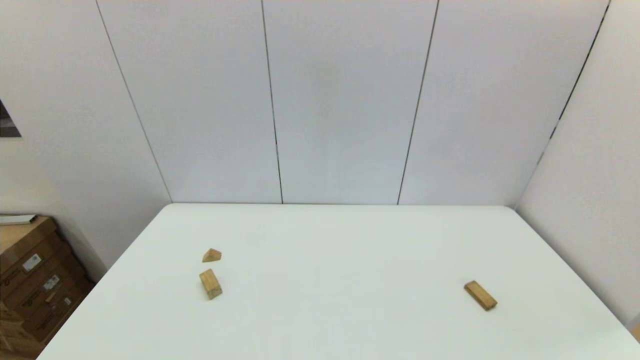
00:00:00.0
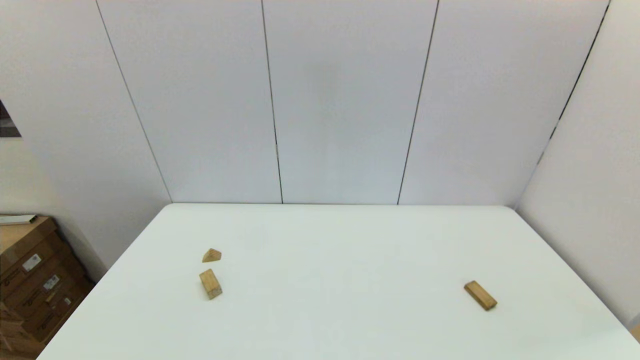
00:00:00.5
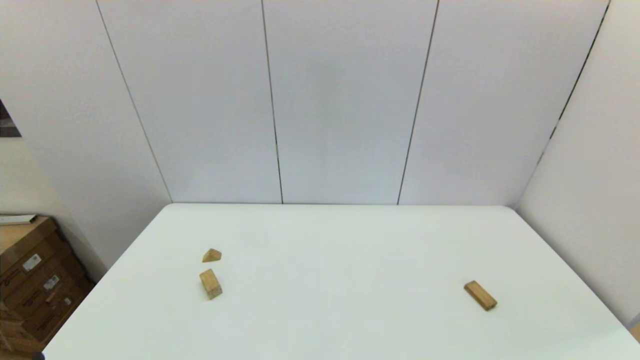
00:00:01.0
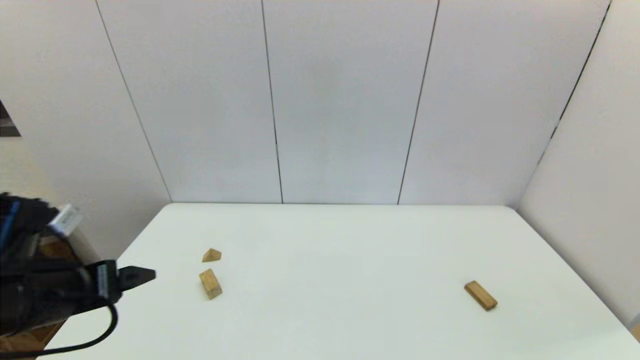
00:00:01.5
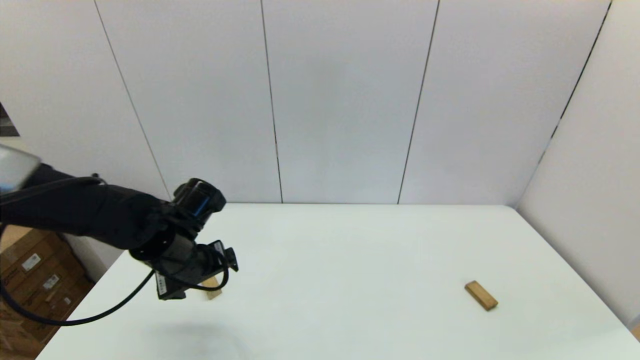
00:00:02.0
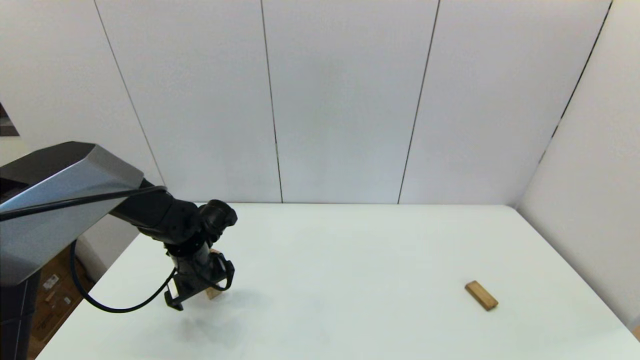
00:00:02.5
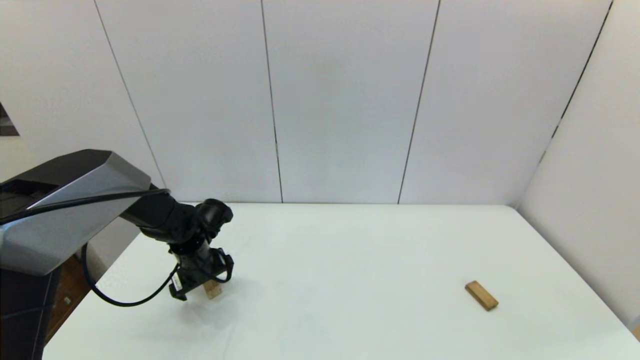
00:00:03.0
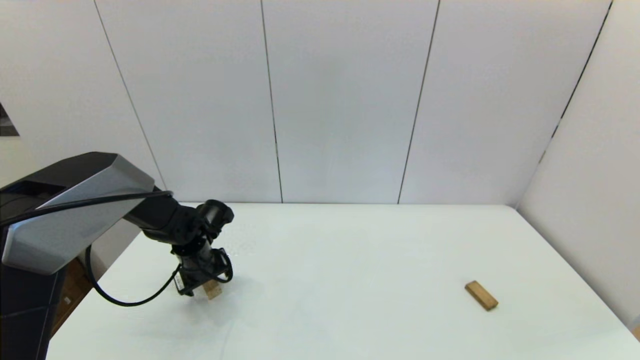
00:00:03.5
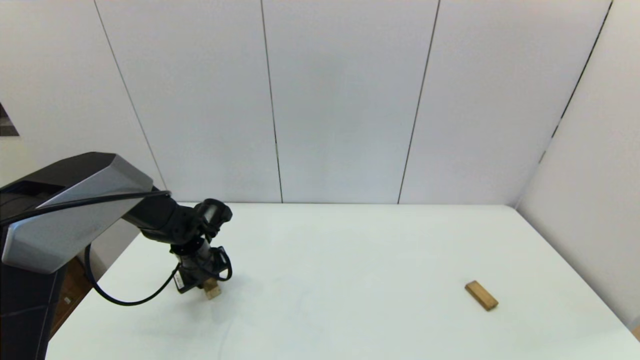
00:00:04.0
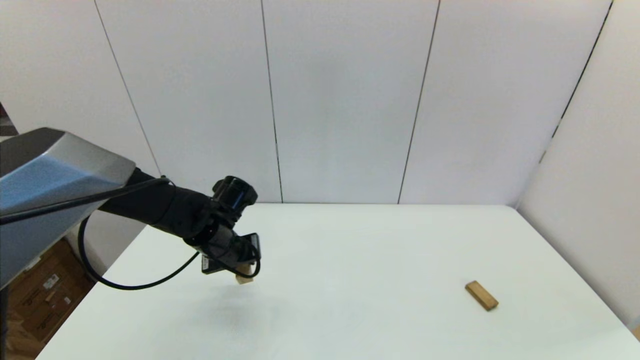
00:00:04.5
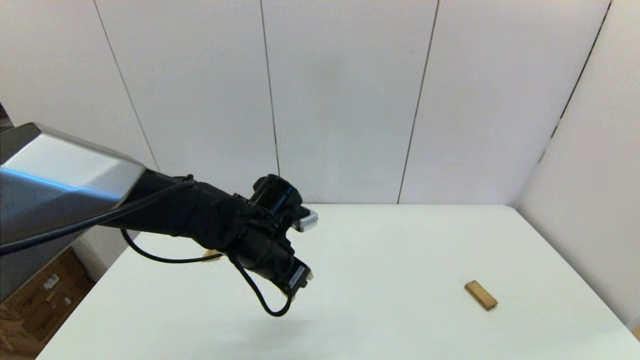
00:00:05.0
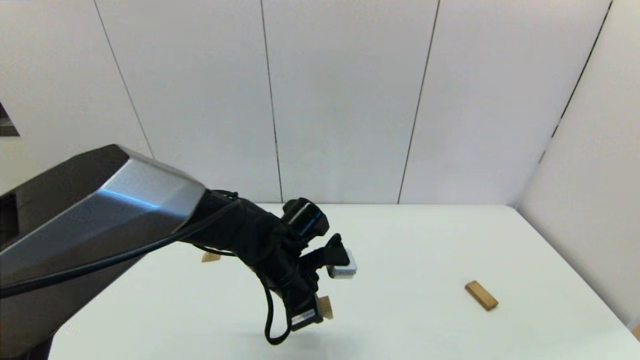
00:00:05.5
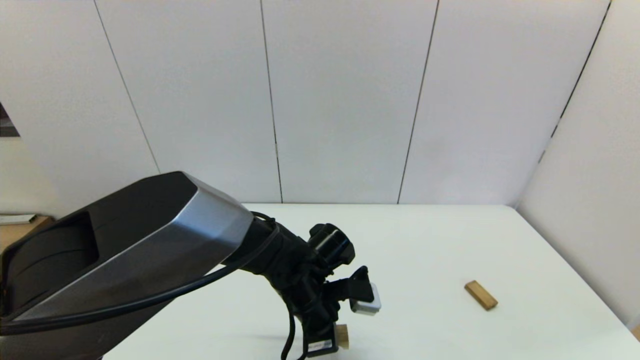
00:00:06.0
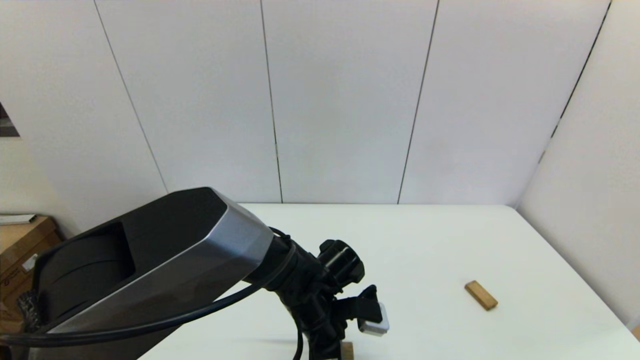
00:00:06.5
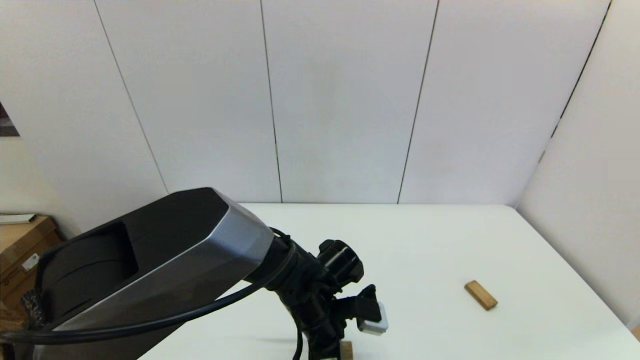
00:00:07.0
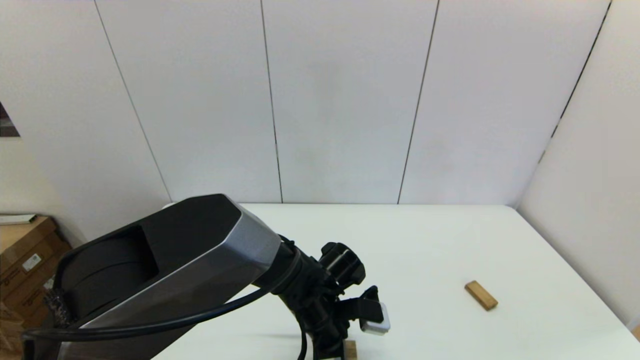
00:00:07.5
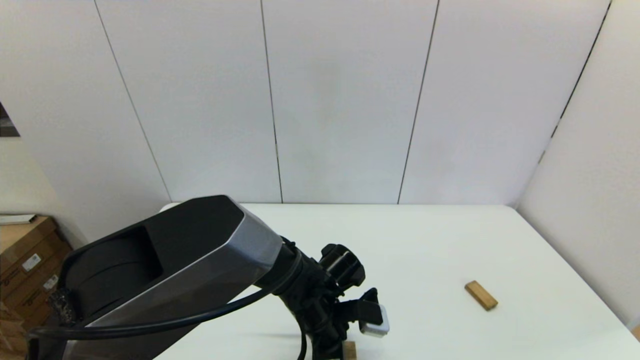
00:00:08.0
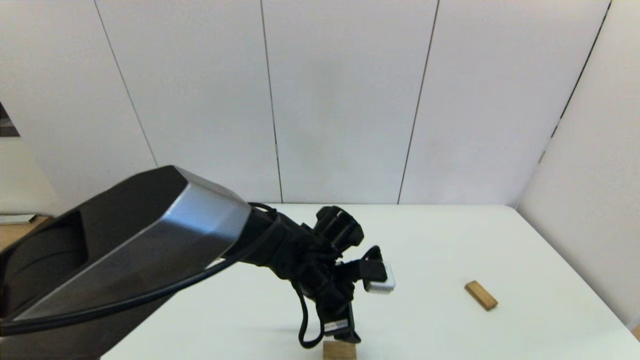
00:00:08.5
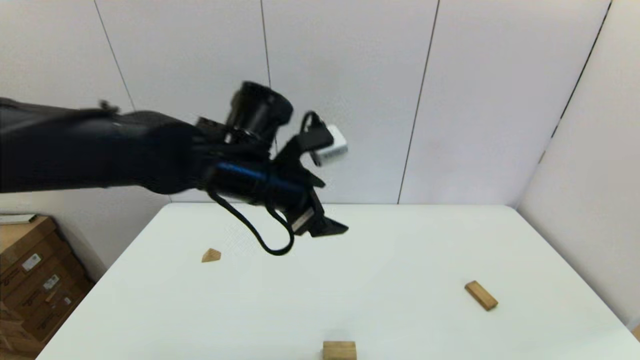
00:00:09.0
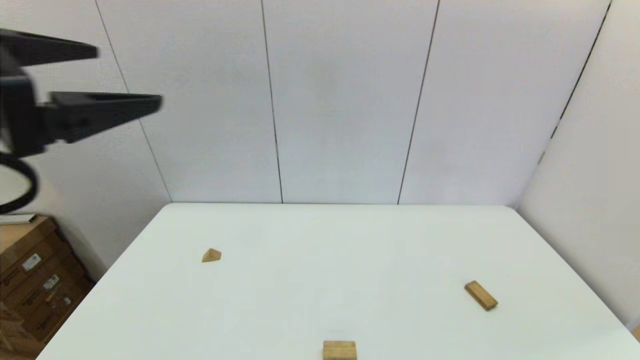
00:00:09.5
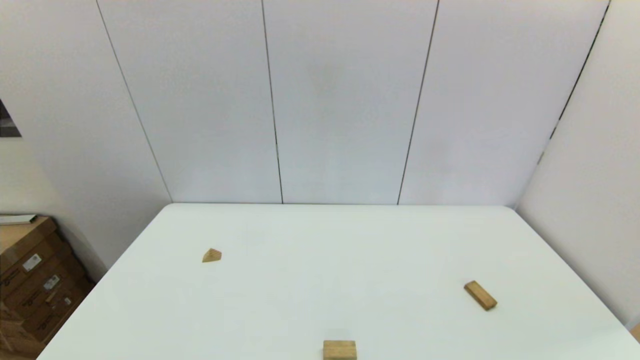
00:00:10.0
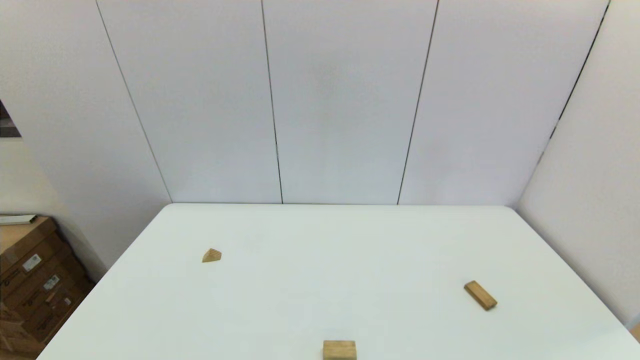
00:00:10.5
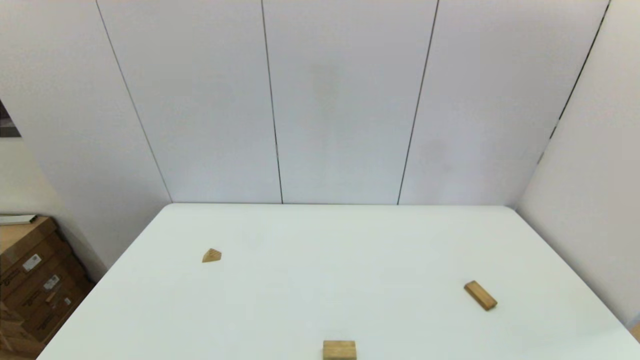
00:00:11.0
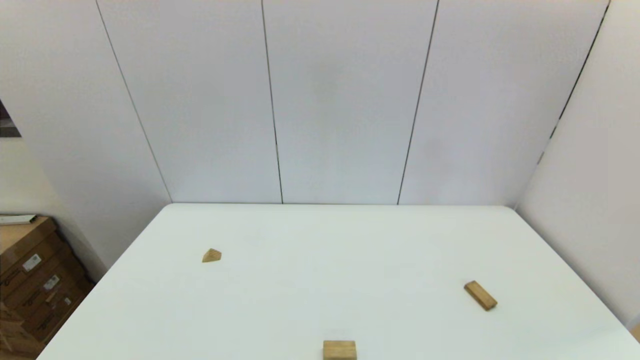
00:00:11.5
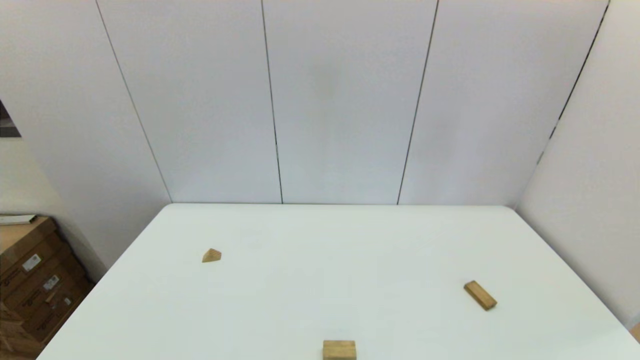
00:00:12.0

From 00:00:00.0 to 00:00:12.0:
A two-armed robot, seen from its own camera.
Task of the whole recording: place the arched building blocks in the center of the table, set up the rectangular building blocks, and then set up the triangular building blocks.
Step, from 00:00:01.0 to 00:00:03.5: Grasp the arch-shaped block with the left gripper.
Step, from 00:00:04.5 to 00:00:07.5: Place the arch-shaped block in the center of view with the left gripper.
From 00:00:00.0 to 00:00:02.0: The left gripper travels forward by roughly 30 cm.
From 00:00:02.0 to 00:00:04.0: The left gripper goes approximately 15 cm downward and forward, and closes.
From 00:00:04.0 to 00:00:06.0: The left gripper heads to the right and backward, covering approximately 25 cm.
From 00:00:06.0 to 00:00:08.0: The grippers stay close to where they were, moving slightly.
From 00:00:08.0 to 00:00:10.0: The left gripper is displaced to the left, backward and upward by some 50 cm, and opens up.

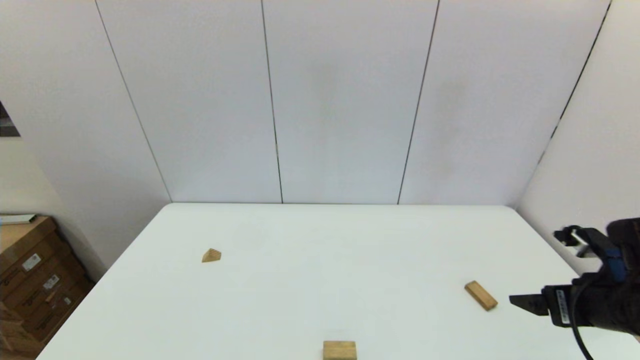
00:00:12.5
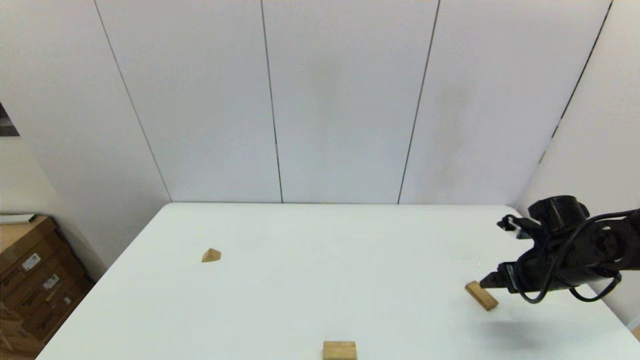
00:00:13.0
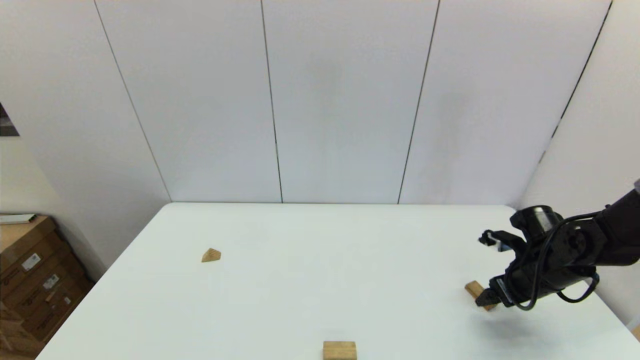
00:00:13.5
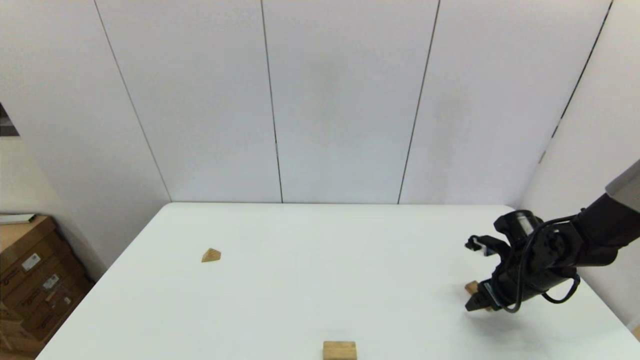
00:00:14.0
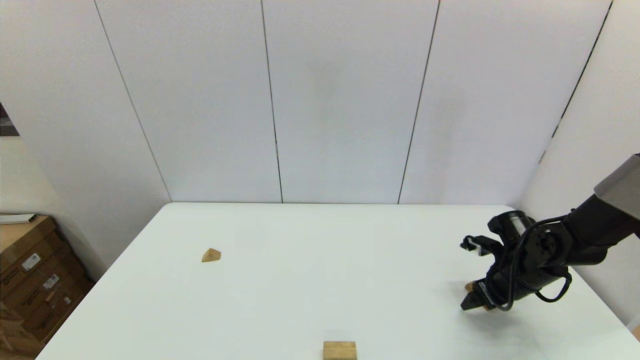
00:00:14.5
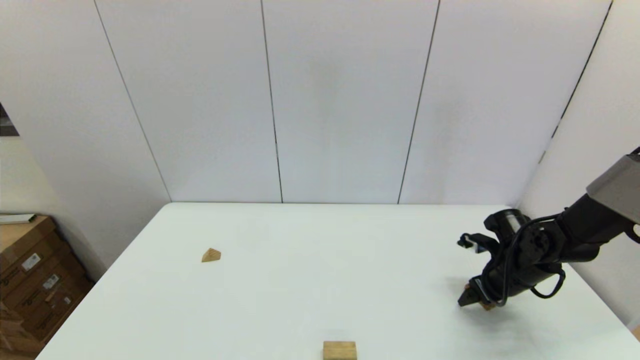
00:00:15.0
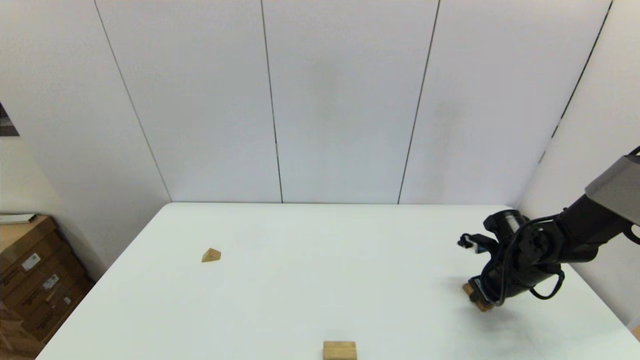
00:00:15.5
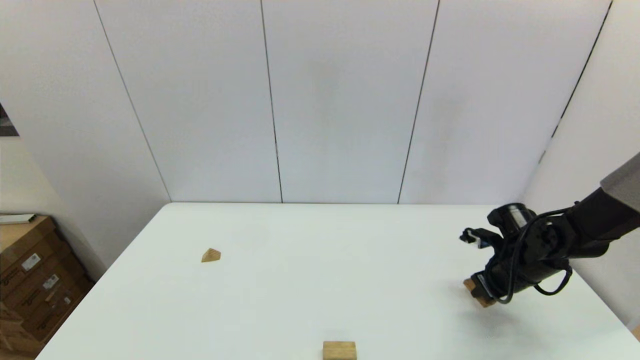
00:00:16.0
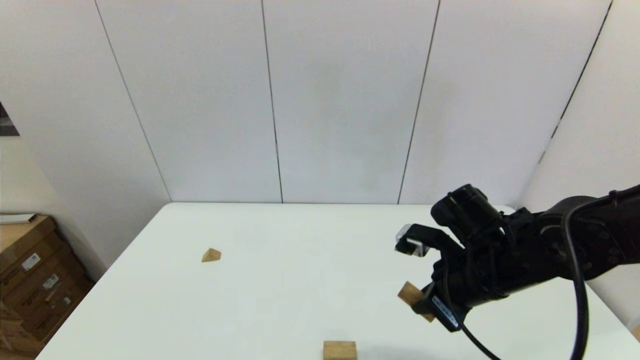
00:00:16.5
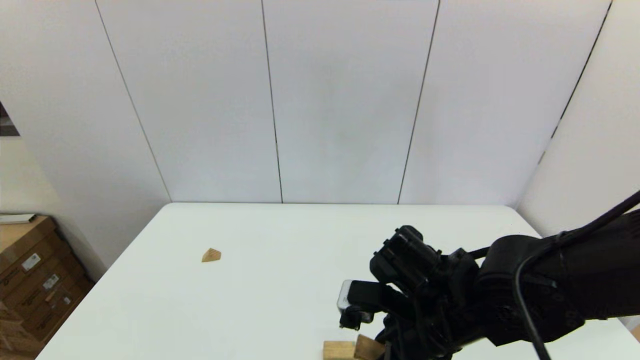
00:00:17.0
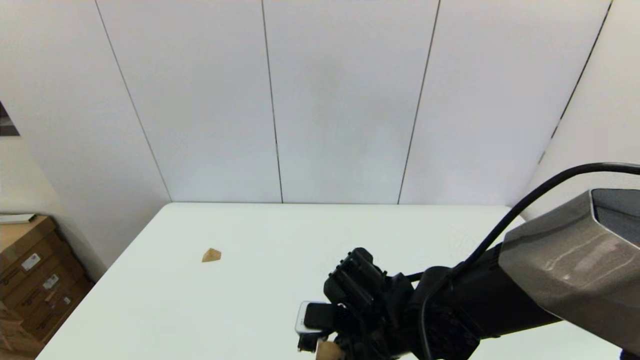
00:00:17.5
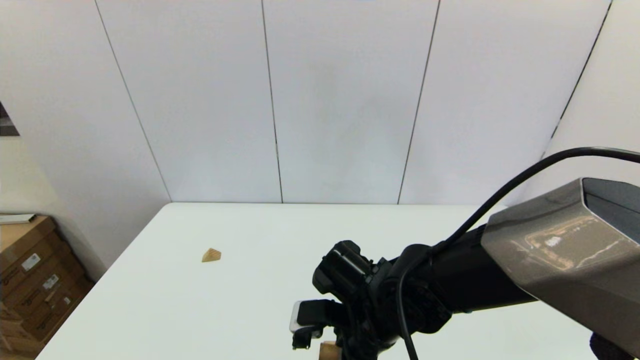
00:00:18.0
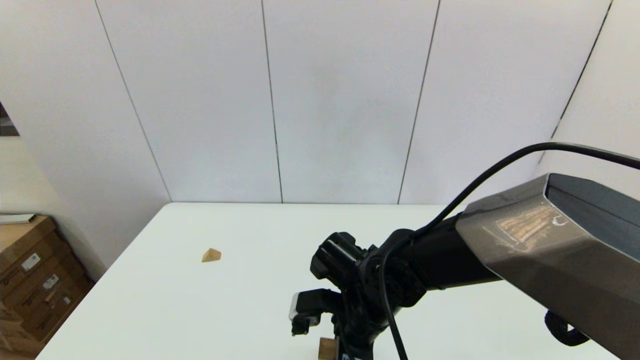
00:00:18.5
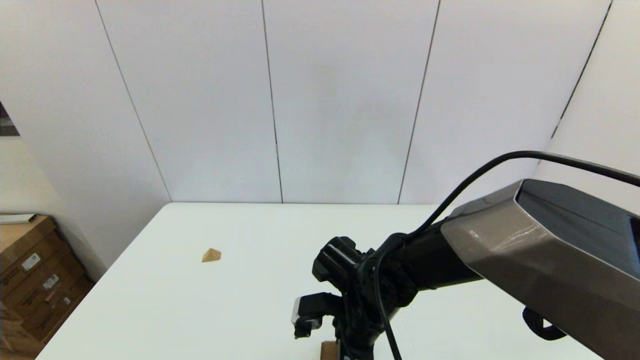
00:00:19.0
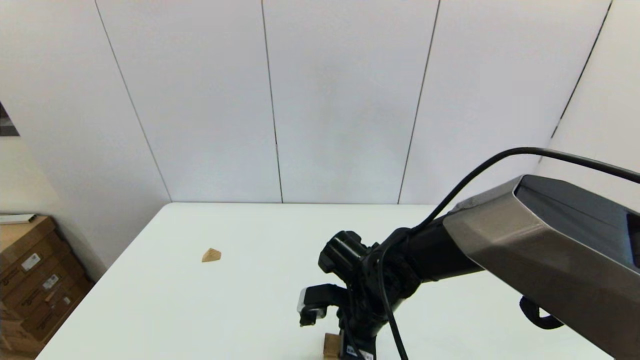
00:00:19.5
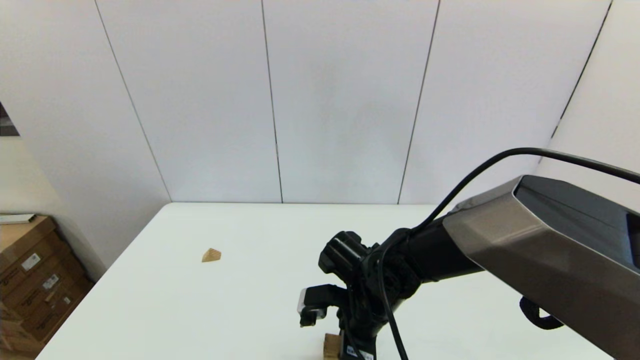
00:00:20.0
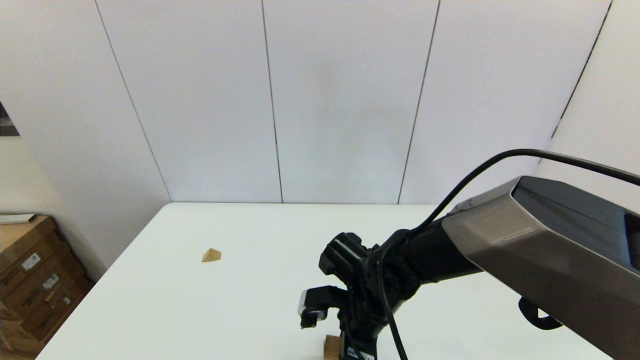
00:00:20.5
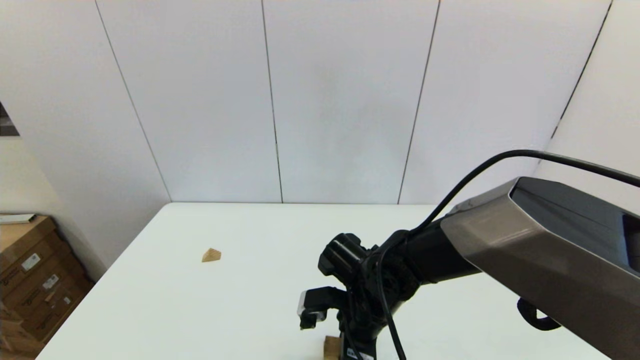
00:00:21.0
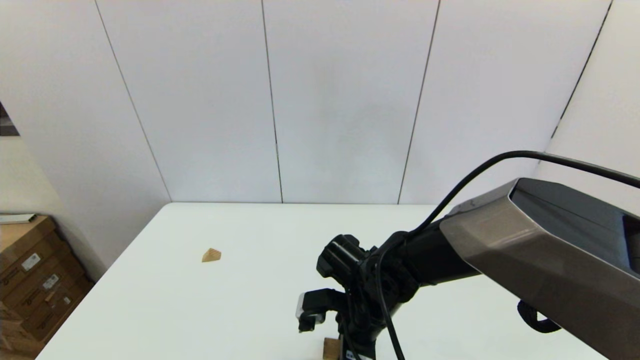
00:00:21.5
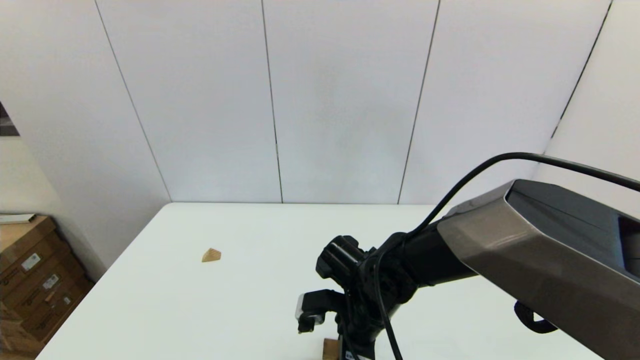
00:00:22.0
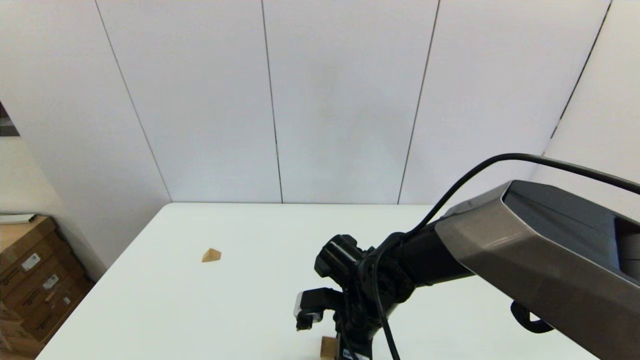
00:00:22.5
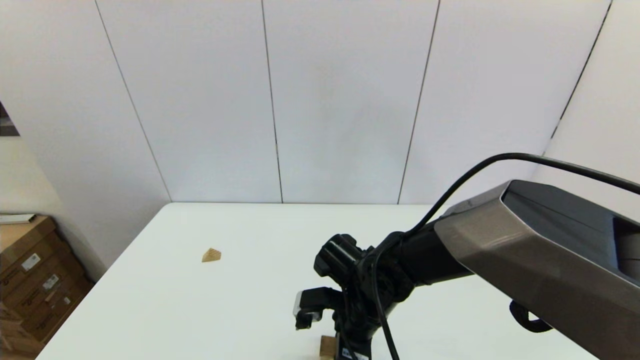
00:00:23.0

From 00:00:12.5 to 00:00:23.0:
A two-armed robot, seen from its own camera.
Task of the whole recording: place the arched building blocks in the center of the table, set up the rectangular building blocks, and then set up the triangular building blocks.
Step, from 00:00:12.5 to 00:00:15.5: Grasp the box-shaped block with the right gripper.
From 00:00:12.5 to 00:00:14.5: The right gripper travels forward and downward by roughly 15 cm.
From 00:00:14.5 to 00:00:16.5: The right gripper heads to the left, upward and backward, covering some 20 cm, and closes its fingers.
From 00:00:16.5 to 00:00:19.0: The right gripper goes approximately 15 cm to the left and downward.
From 00:00:19.0 to 00:00:23.0: The two grippers keep their place.
